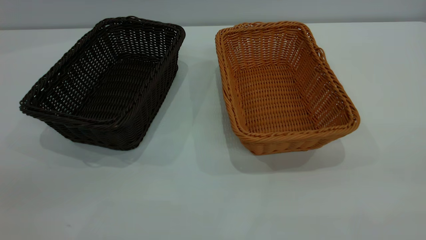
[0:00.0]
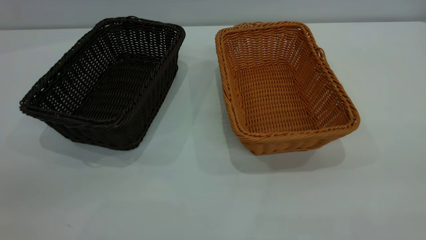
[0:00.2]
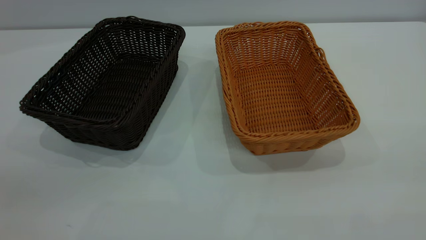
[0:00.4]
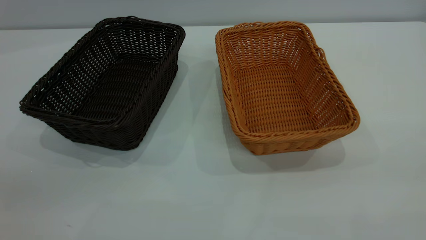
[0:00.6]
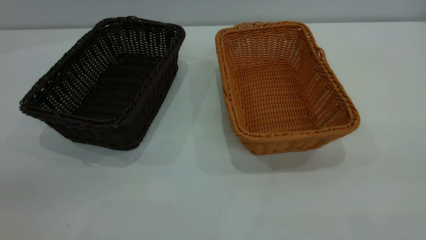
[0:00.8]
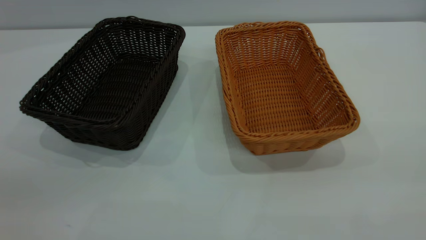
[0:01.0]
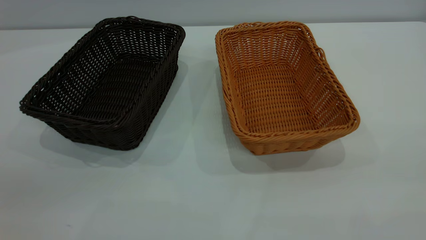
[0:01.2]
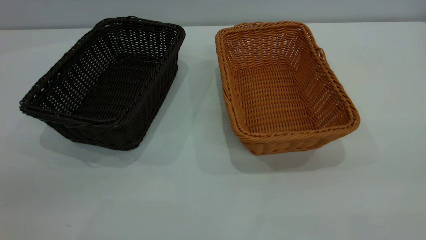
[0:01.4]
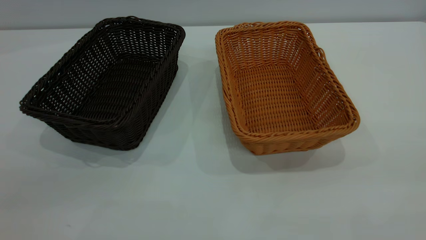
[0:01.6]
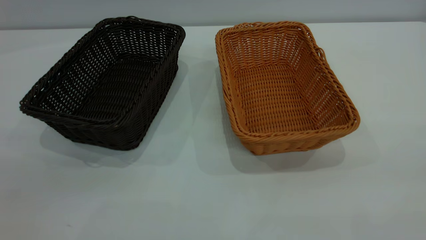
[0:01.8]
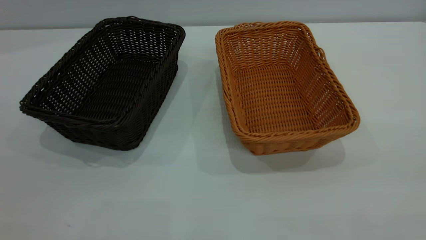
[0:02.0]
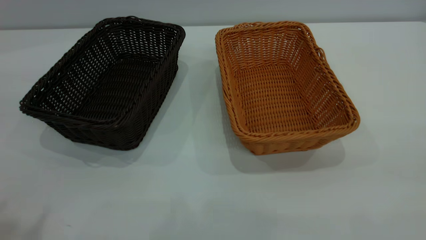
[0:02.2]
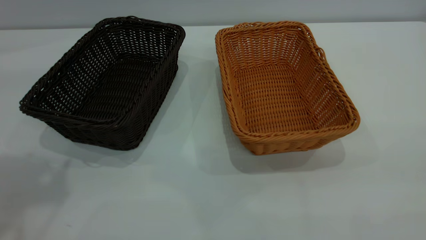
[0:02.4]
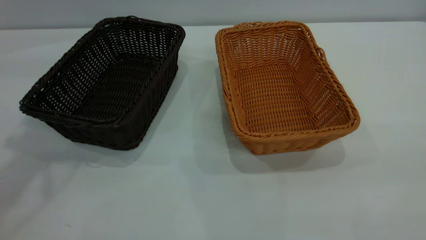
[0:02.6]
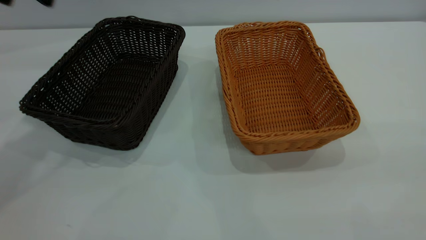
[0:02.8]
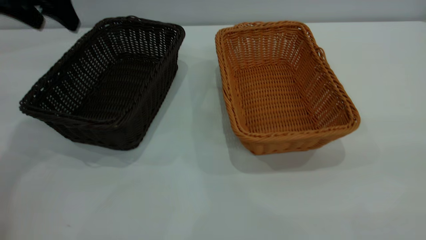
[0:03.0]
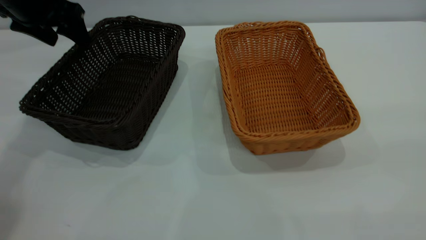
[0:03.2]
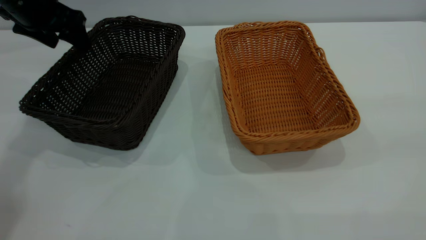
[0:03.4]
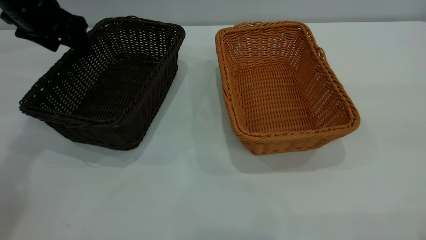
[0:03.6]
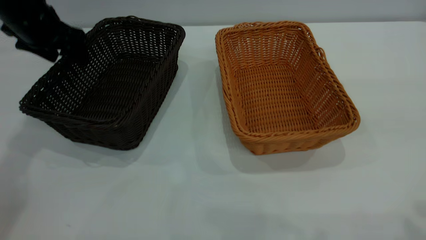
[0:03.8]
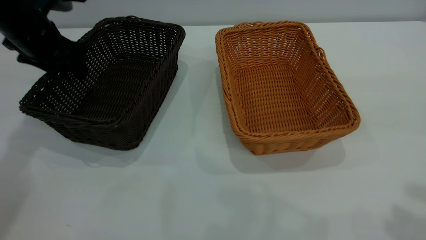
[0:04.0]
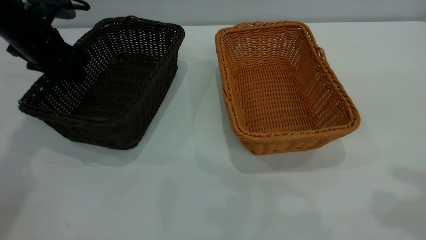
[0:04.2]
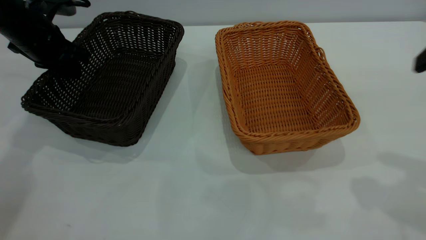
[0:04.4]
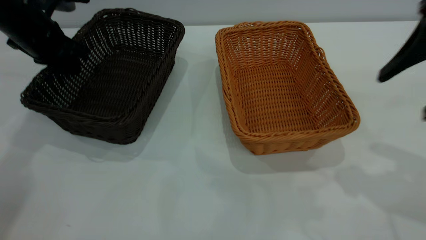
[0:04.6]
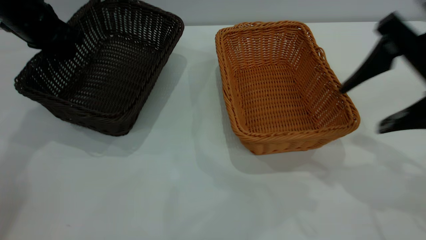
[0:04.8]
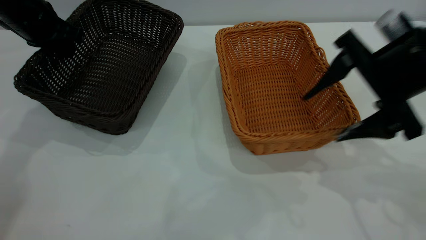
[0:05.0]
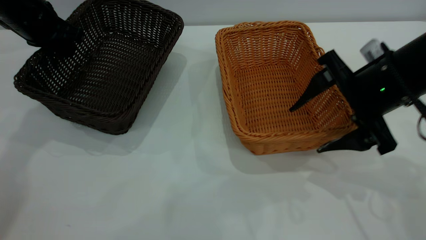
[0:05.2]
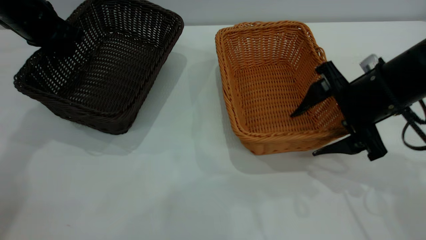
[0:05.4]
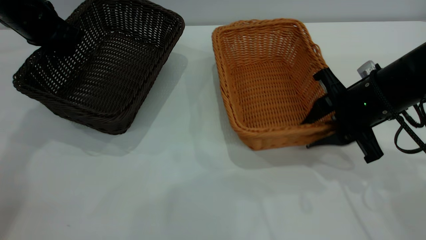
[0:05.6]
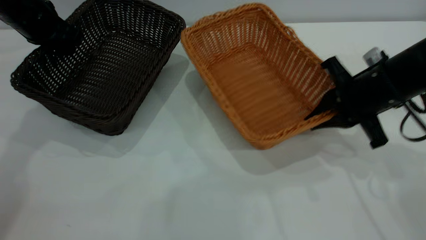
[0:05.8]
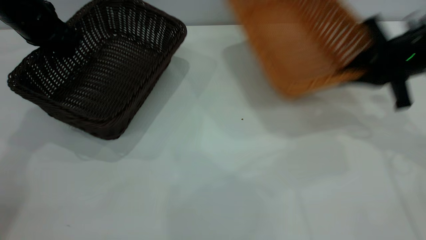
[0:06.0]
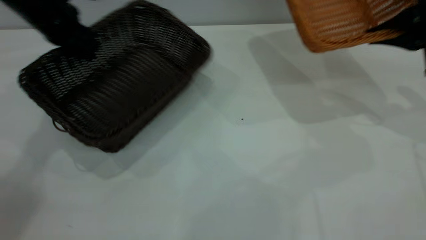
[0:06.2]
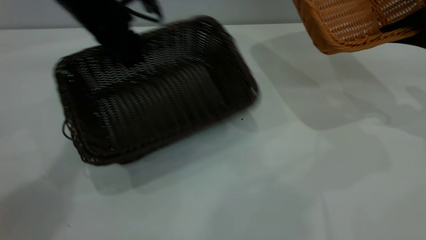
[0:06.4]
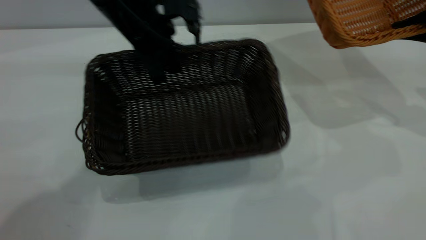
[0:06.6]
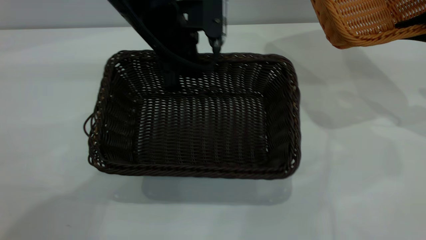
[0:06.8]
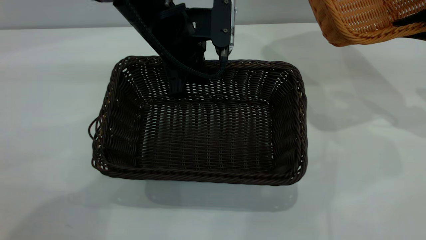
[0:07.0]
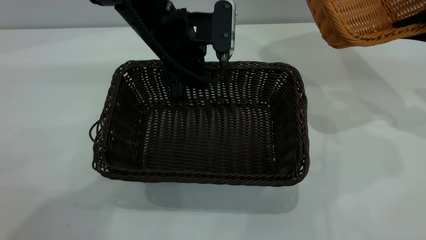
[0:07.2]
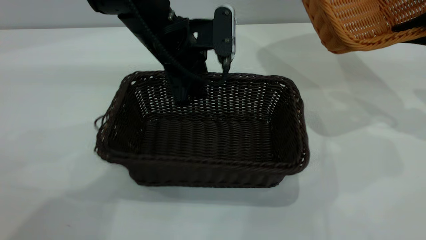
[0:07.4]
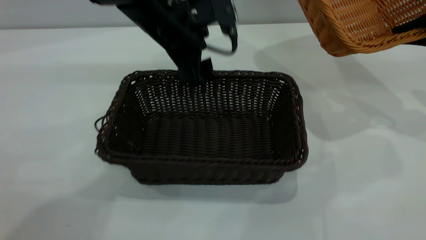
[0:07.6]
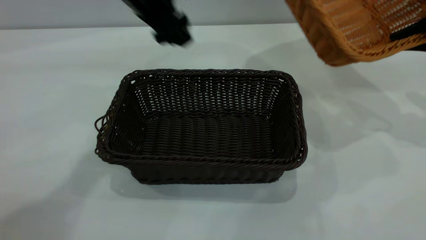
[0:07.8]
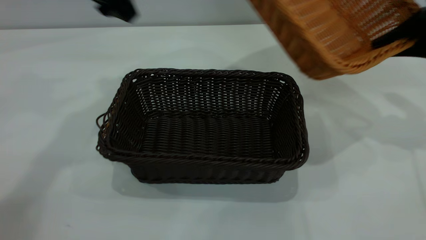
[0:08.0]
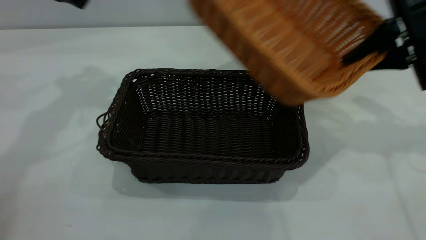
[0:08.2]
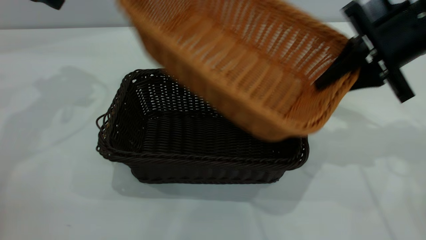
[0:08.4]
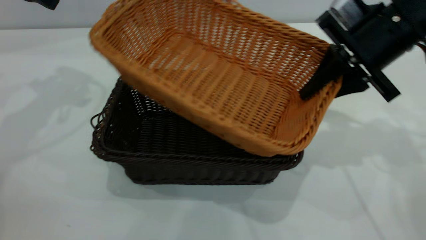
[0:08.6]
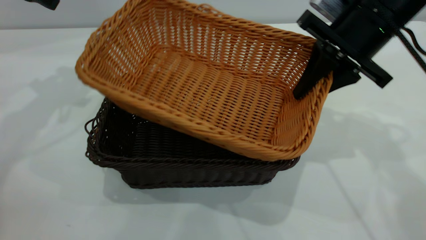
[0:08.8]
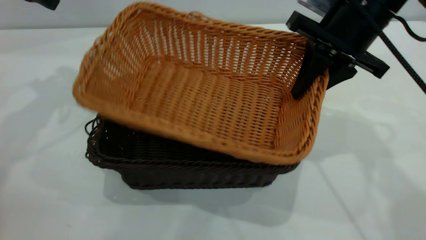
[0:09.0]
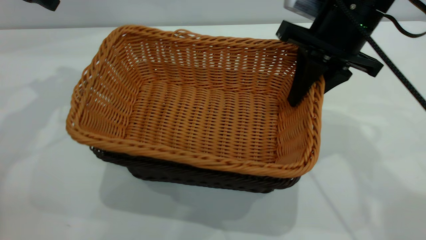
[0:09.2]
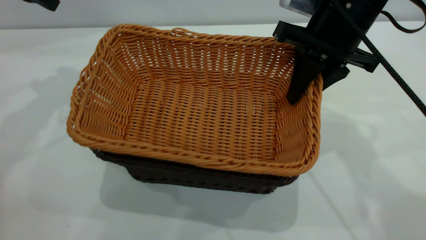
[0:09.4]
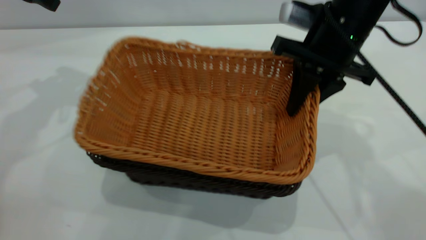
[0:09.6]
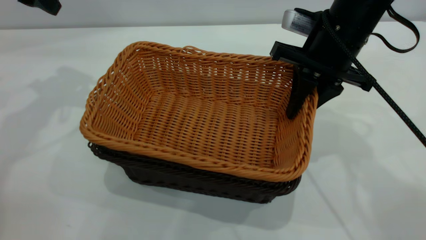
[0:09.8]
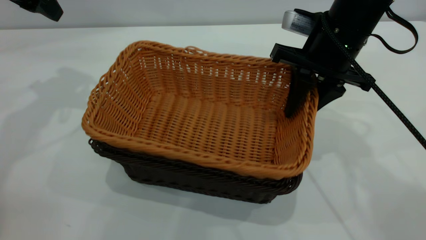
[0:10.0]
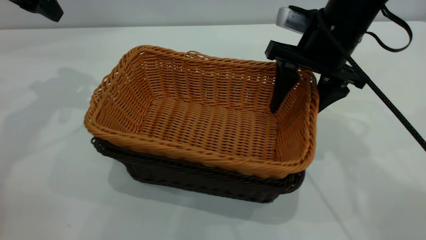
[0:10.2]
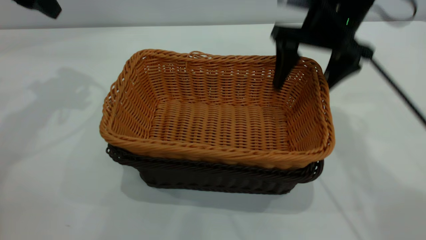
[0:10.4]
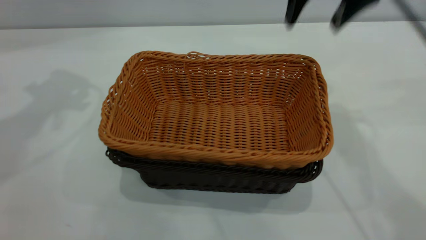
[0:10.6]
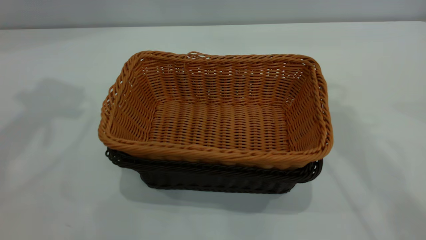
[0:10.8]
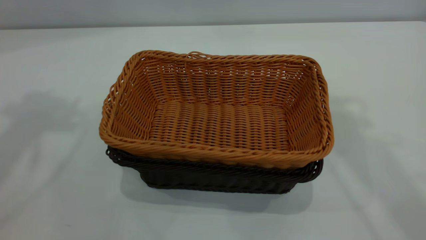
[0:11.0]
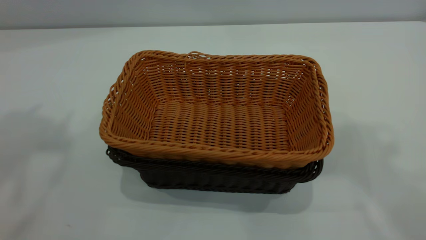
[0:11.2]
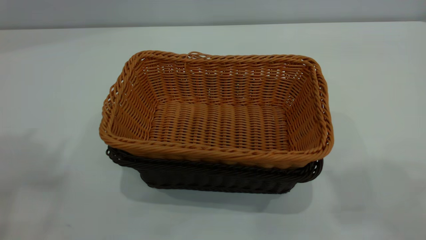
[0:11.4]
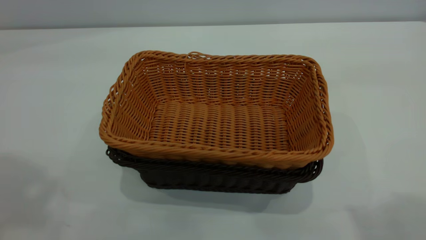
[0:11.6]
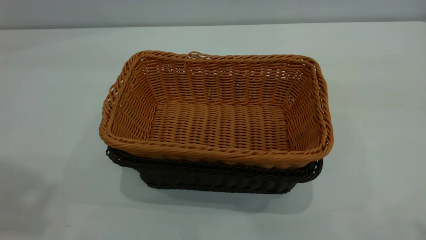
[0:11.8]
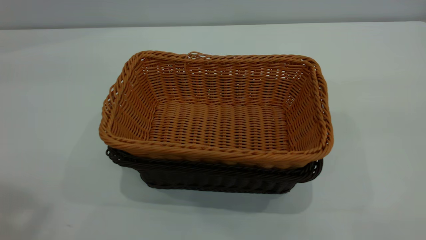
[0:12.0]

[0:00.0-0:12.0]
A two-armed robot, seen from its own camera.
Task of the whole recording: the left gripper grasp the black basket and place it in the center of the table, the right gripper grasp the brown basket and place it inside the black one.
Step, 0:00.0 to 0:06.0: Pick up the light basket with the right gripper.
Step, 0:06.2 to 0:07.6: Move the dark basket to the center of view.
Step, 0:07.8 to 0:10.4: Place the light basket on the dark basket.
0:01.6 to 0:03.0: The left gripper is displaced forward by some 40 cm.
0:03.0 to 0:04.4: The right gripper is displaced forward by roughly 20 cm; the left gripper heads downward, covering about 10 cm, and closes up.
0:04.4 to 0:06.0: The right gripper goes roughly 20 cm forward and downward, and closes its fingers.
0:06.0 to 0:07.6: The right gripper goes some 5 cm to the right; the left gripper shifts approximately 20 cm to the right, and opens up.
0:07.6 to 0:09.0: Both grippers travel together to the left, approximately 20 cm.
0:09.0 to 0:10.4: The right gripper opens up.
0:10.4 to 0:12.0: Both grippers travel together backward and upward, roughly 40 cm.
